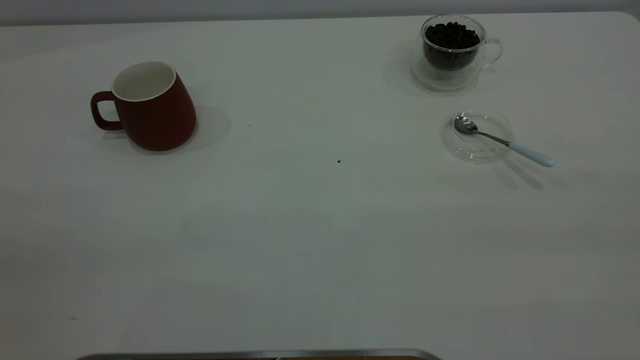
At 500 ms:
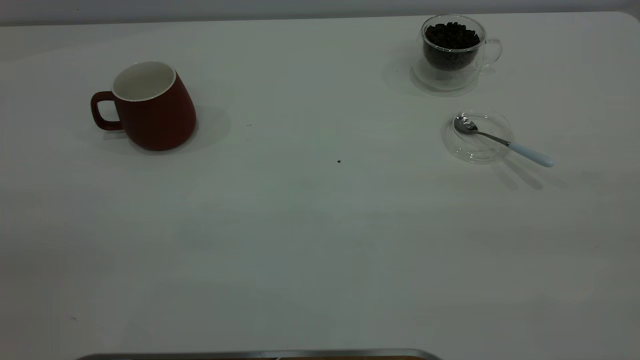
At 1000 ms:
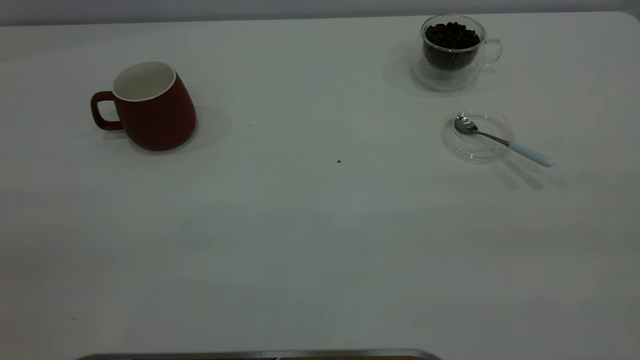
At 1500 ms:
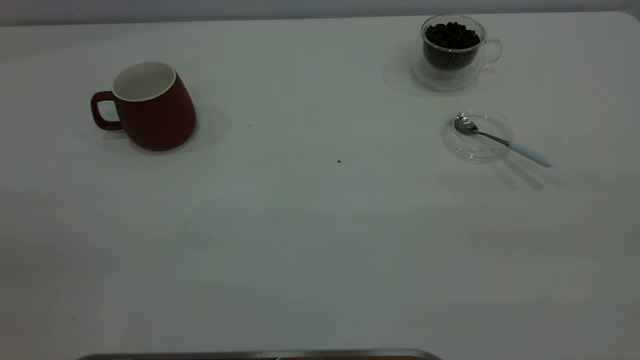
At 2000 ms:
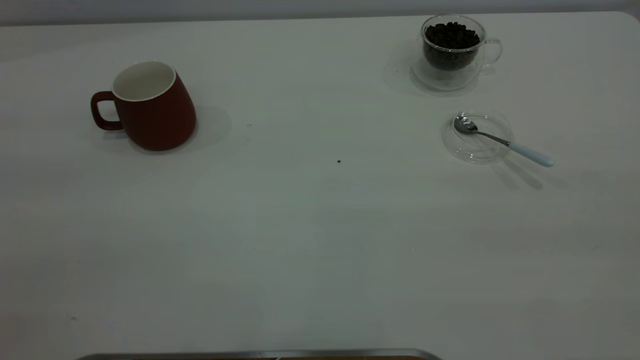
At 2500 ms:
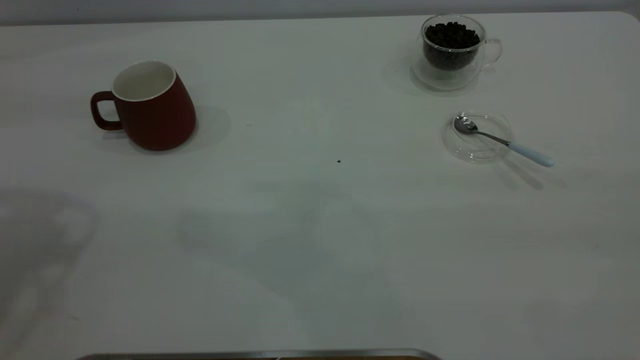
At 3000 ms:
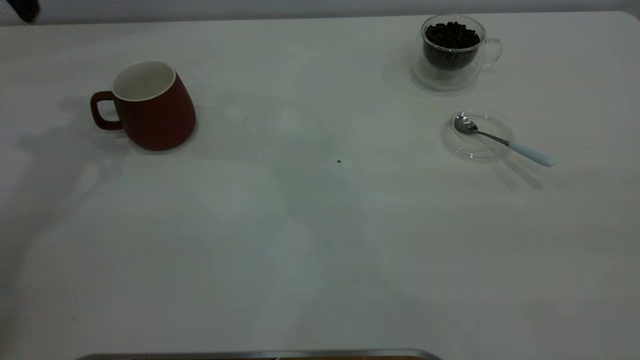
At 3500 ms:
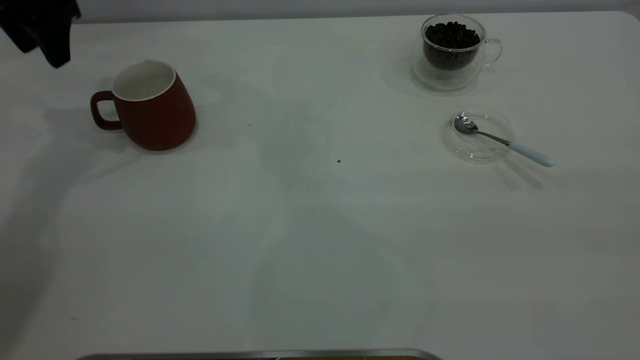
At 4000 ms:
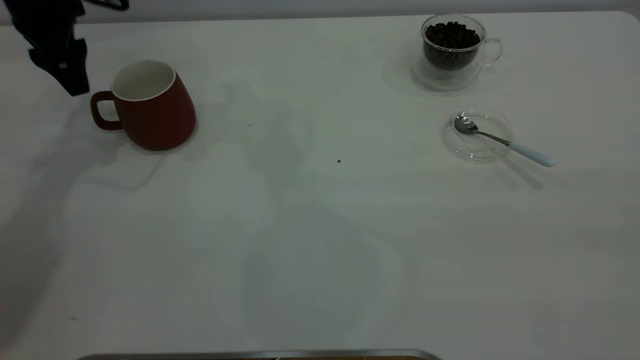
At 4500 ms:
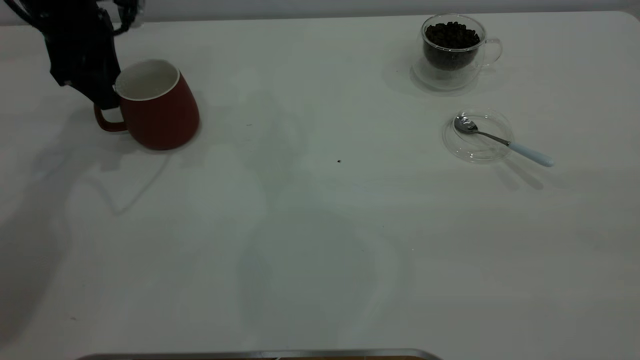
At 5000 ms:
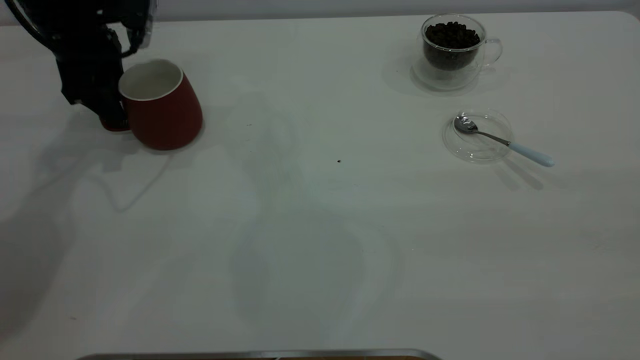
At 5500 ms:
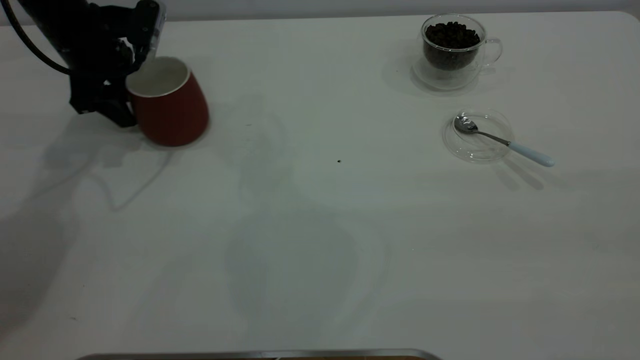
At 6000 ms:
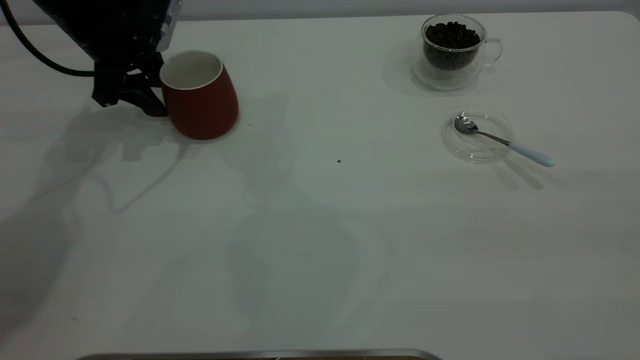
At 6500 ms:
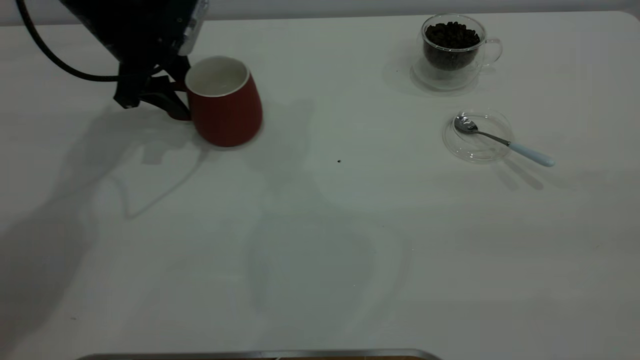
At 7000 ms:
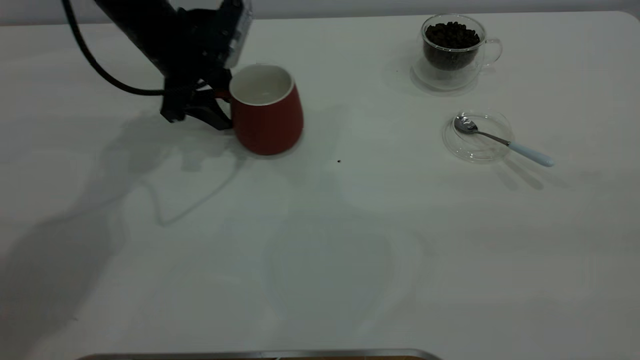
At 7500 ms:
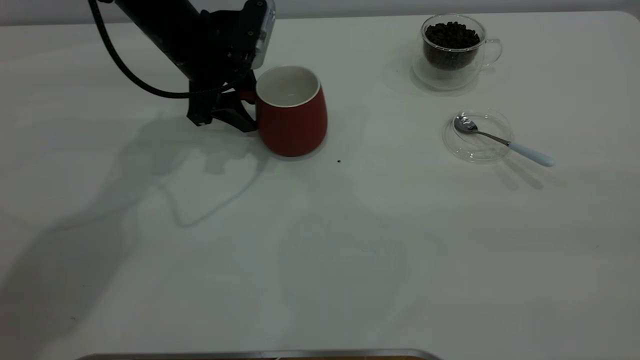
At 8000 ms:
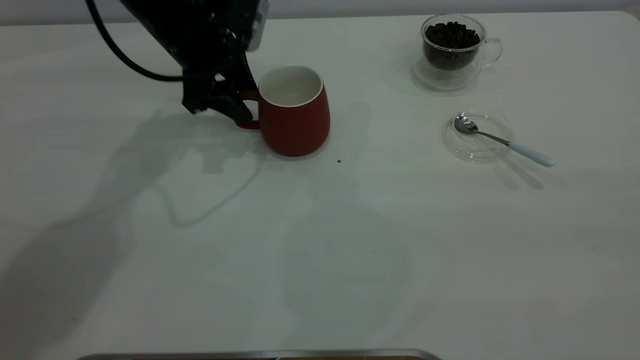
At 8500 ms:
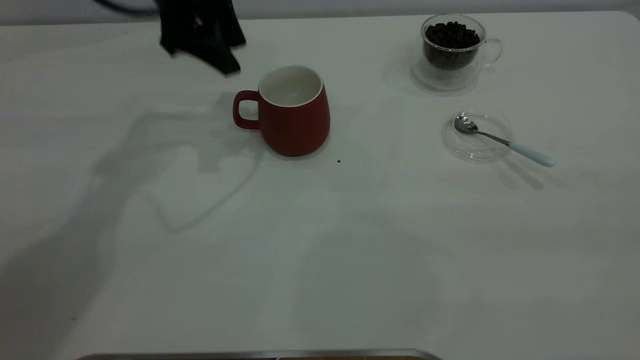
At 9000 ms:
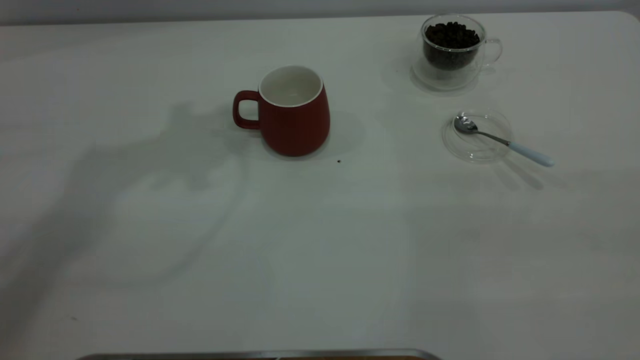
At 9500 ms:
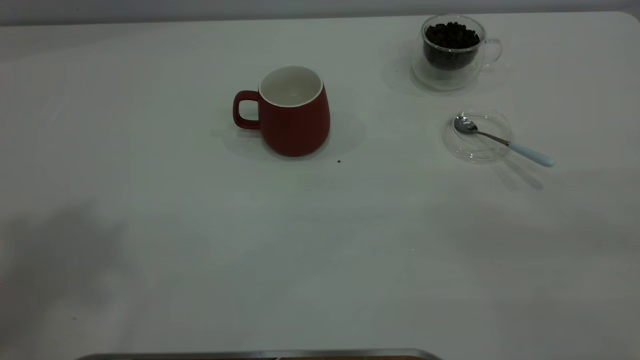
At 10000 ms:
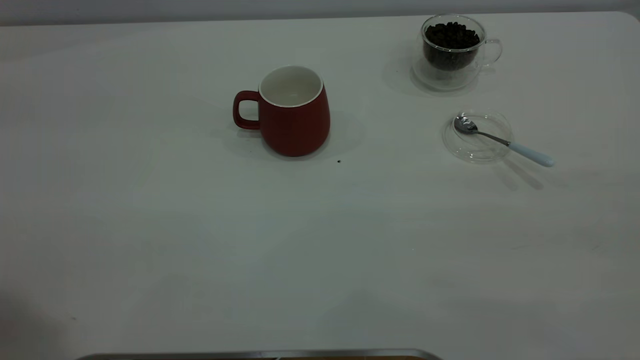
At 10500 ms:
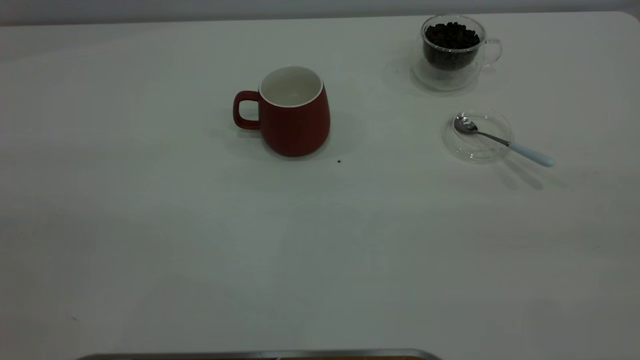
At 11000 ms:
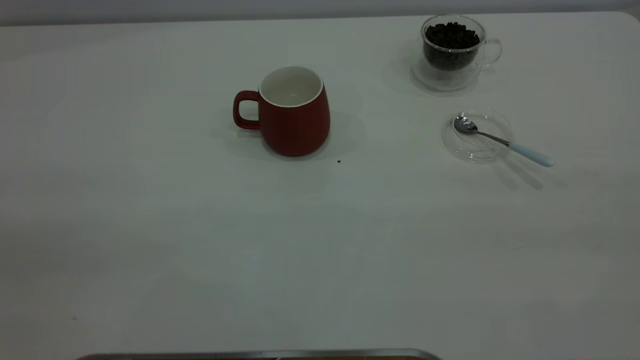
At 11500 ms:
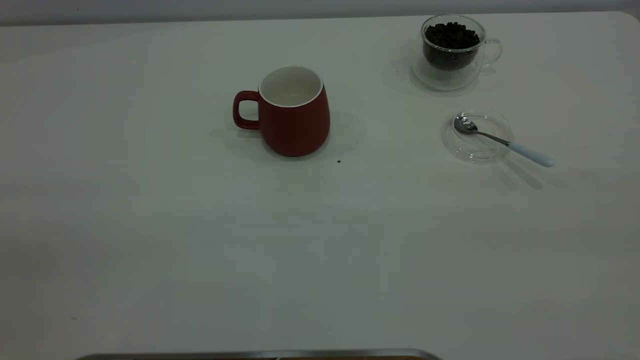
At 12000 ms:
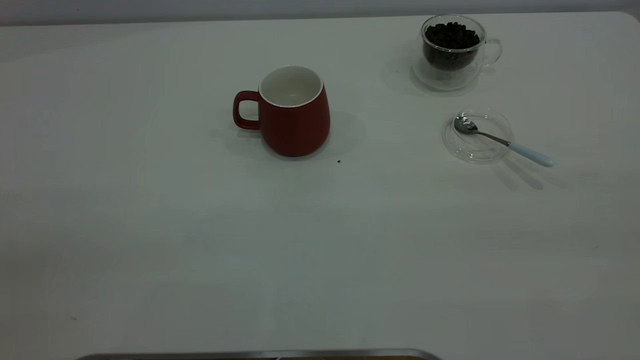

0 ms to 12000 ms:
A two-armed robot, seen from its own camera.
Task of the whole recording: the left gripper place the red cup in the center of the table, the right gripper take the blue spoon from the cup lid and scoop out the coffee beans from the coffee cup and put them into the red cup, the right gripper put the spoon back into the cup lid.
Step, 0 ms to 8000 ms: Move the cup to the center of view.
2000 ms to 4000 ms: The left gripper heads forward and downward, covering roughly 40 cm.
4000 ms to 6000 ms: The left gripper moves downward, approximately 5 cm.
6000 ms to 8000 ms: The left gripper moves to the right, about 10 cm.
8000 ms to 10000 ms: The left gripper heads upward and backward, covering some 50 cm.

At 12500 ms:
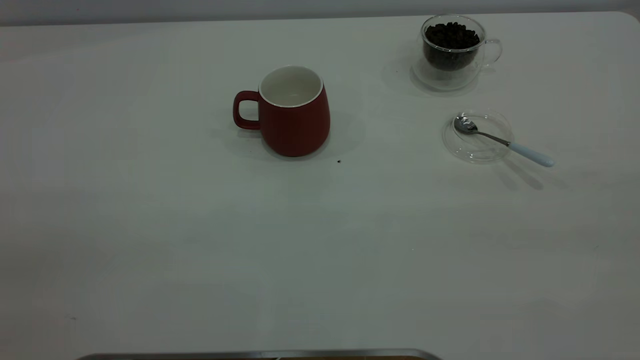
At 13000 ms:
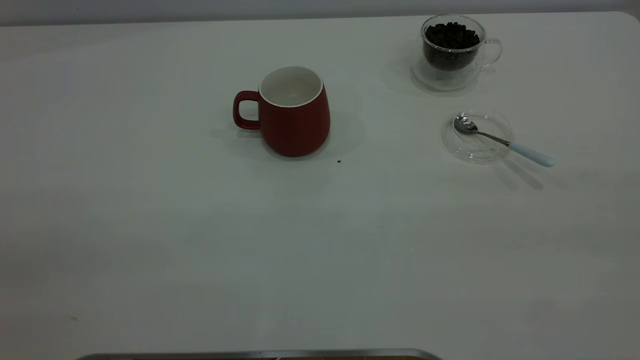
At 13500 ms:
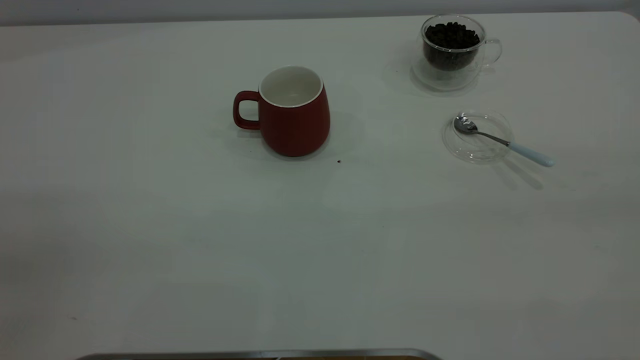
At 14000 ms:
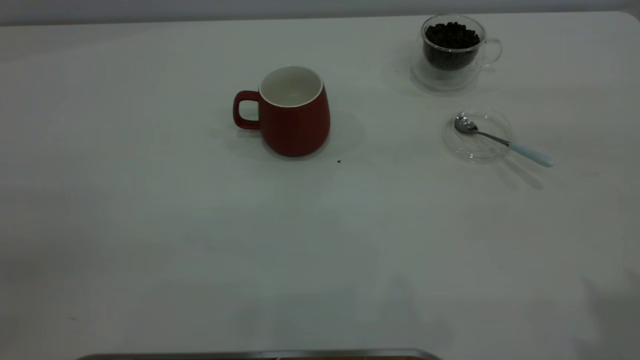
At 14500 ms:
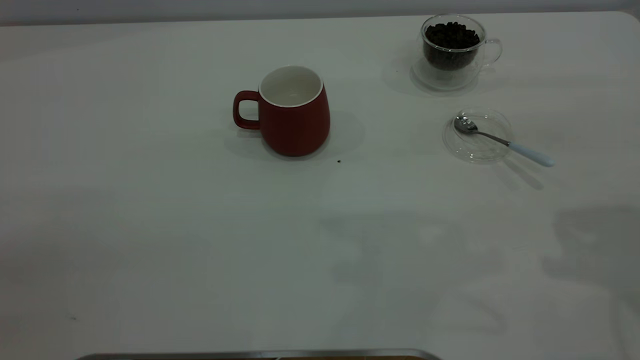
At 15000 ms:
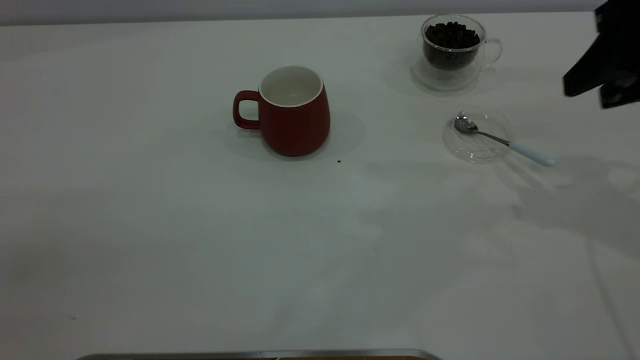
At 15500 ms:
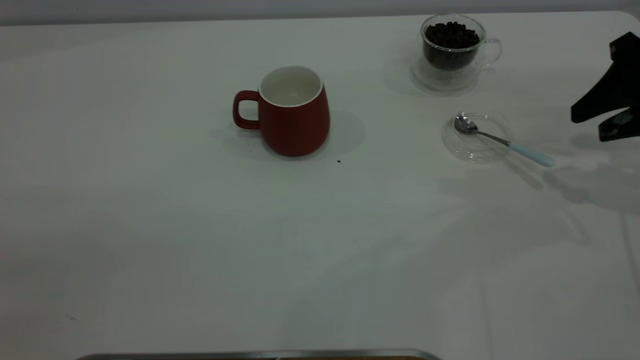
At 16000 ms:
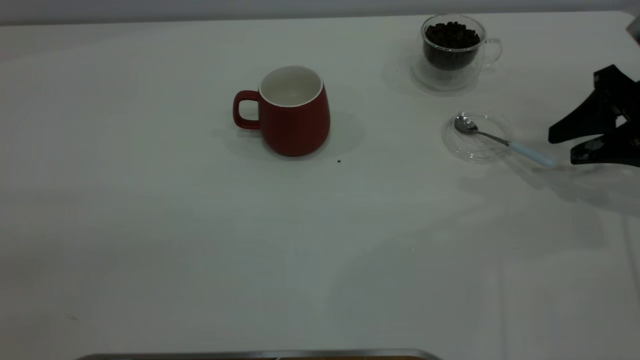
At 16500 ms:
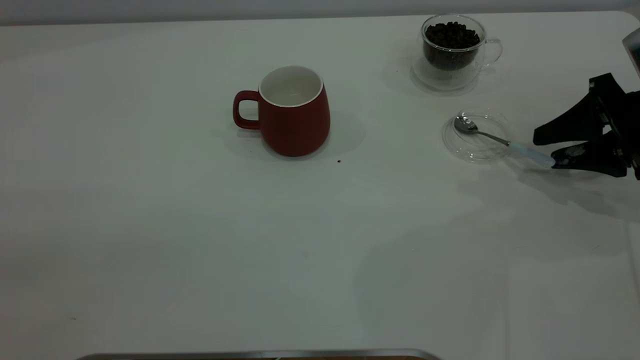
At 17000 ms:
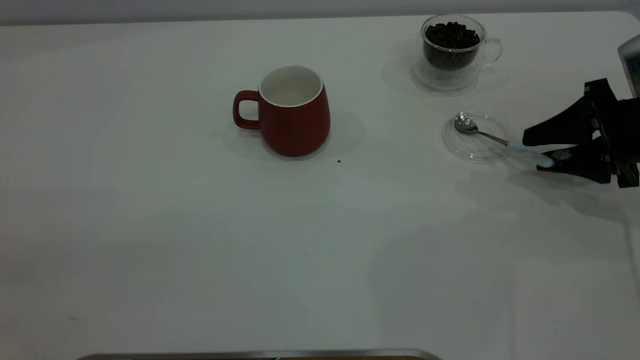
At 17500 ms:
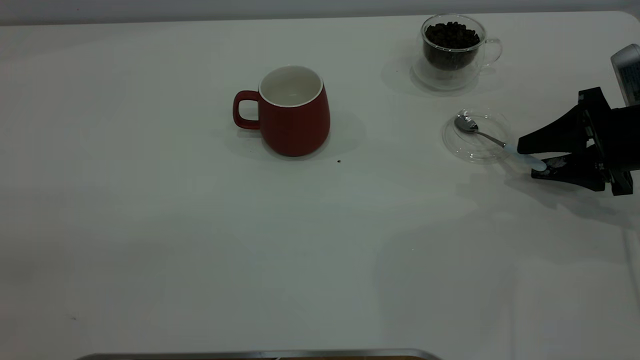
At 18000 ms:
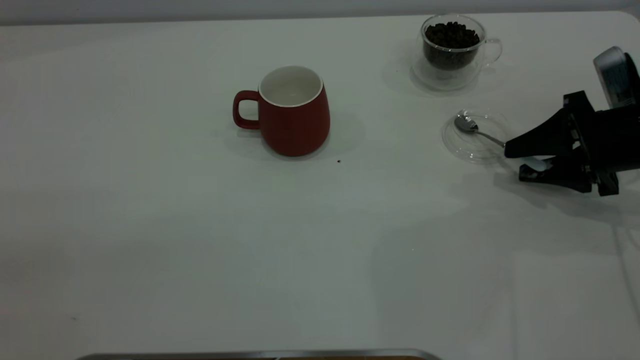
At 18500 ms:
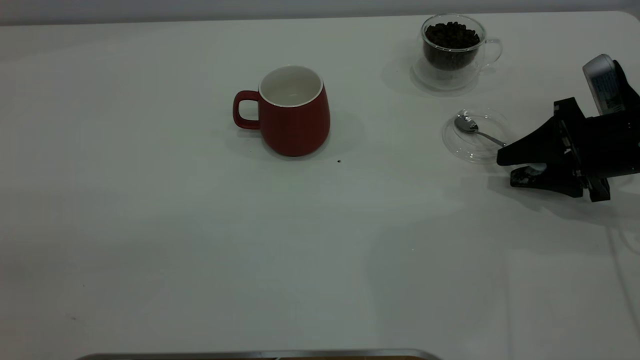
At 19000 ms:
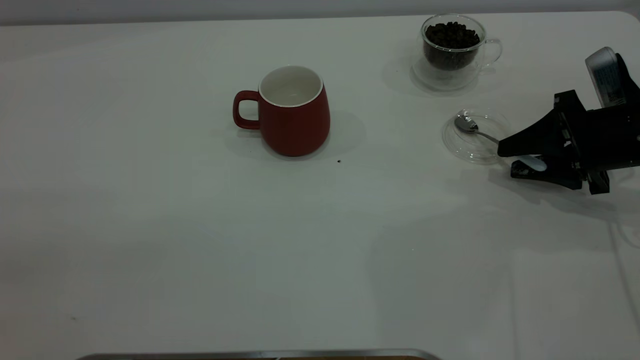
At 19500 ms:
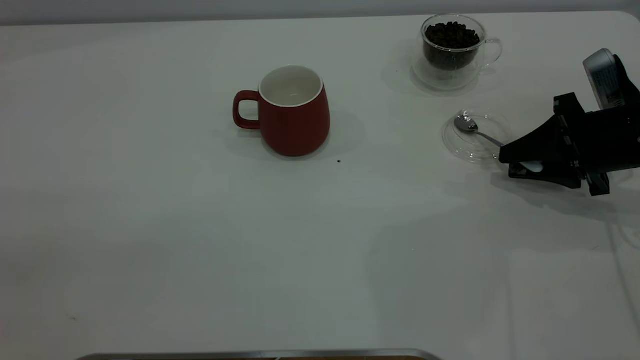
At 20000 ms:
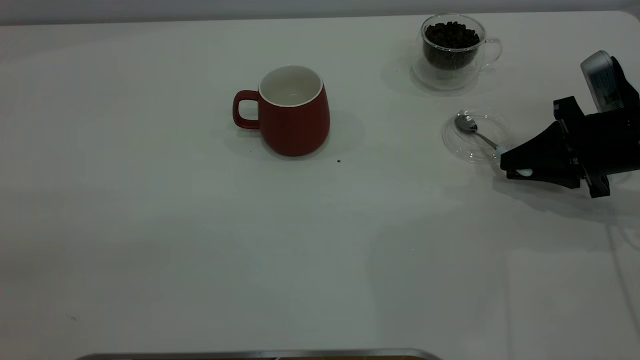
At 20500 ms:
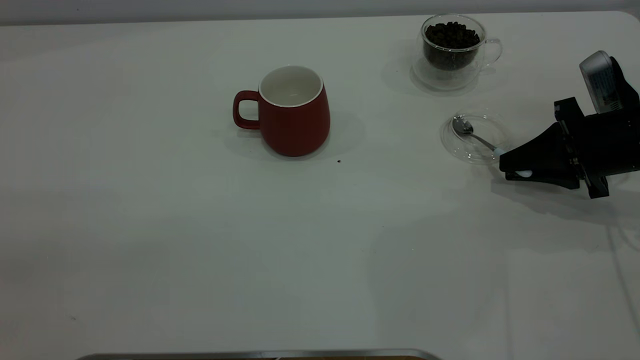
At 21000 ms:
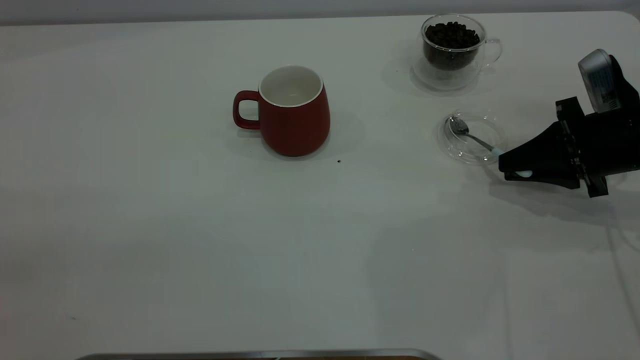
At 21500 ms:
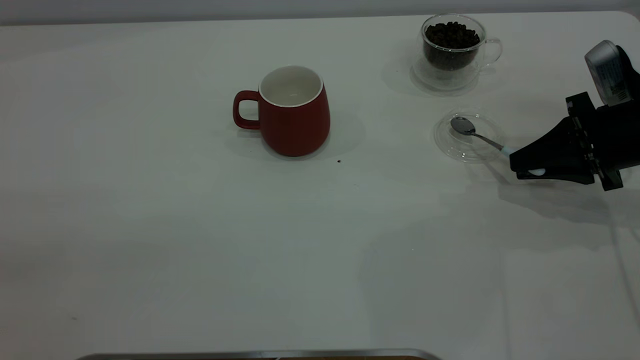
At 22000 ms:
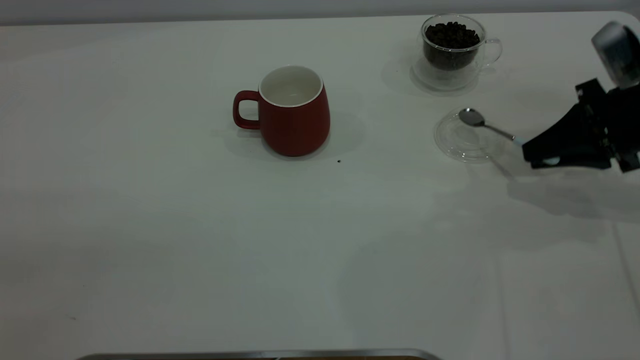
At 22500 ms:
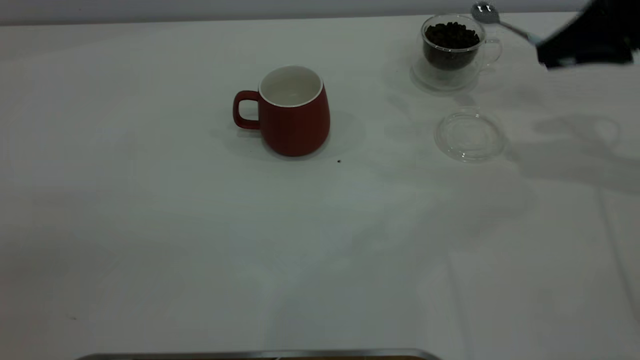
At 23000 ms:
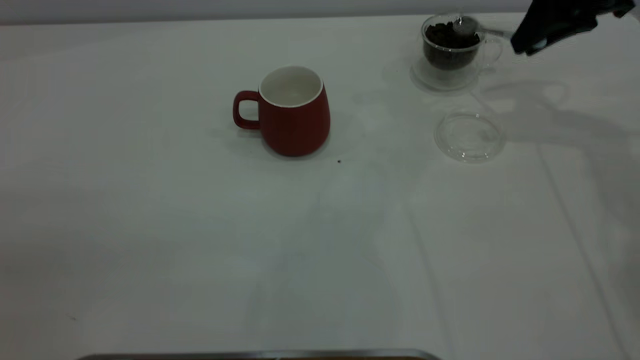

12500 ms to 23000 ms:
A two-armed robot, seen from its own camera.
Task of the whole recording: the left gripper place the red cup in the center of the table, the right gripper take the blue spoon from the cup lid and scoop out the coffee beans from the coffee cup and put them into the red cup, the right gripper put the spoon back into the cup lid.
Step, 12500 ms to 21500 ms: Pick up the spoon.
14500 ms to 16500 ms: The right gripper moves downward and forward, roughly 20 cm.
16500 ms to 19000 ms: The grippers move only a little.
19000 ms to 21000 ms: The right gripper closes.
21000 ms to 23000 ms: The right gripper heads upward and forward, covering roughly 20 cm.
